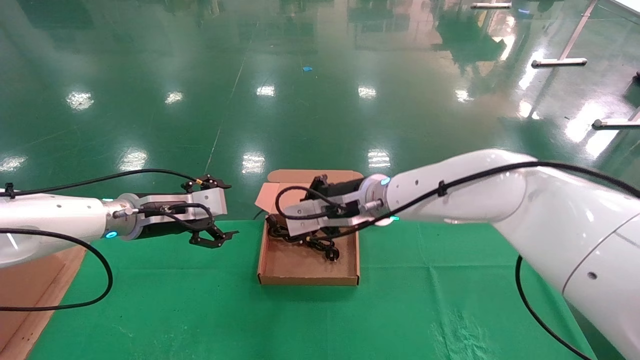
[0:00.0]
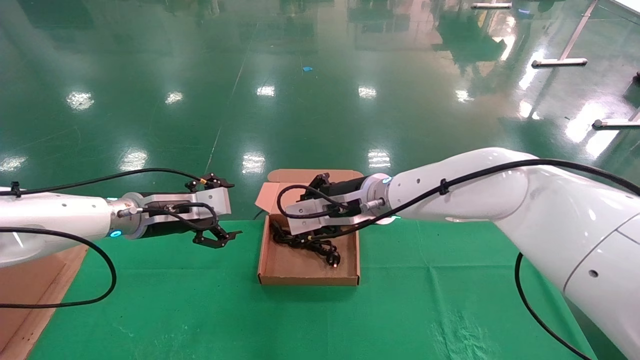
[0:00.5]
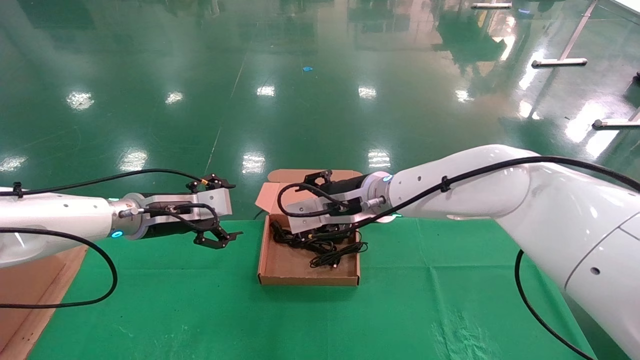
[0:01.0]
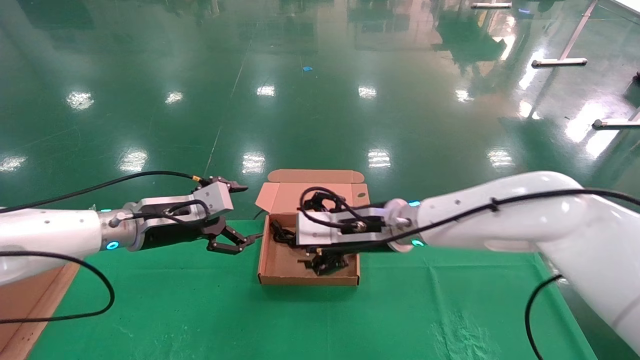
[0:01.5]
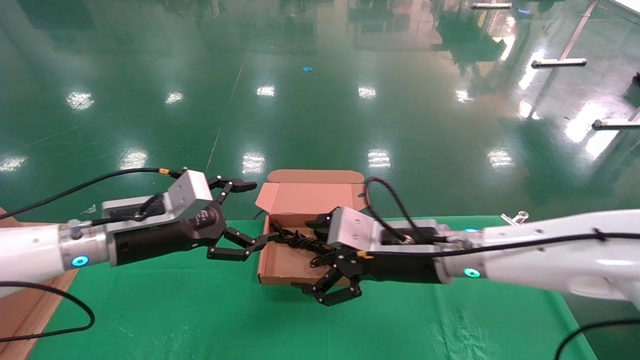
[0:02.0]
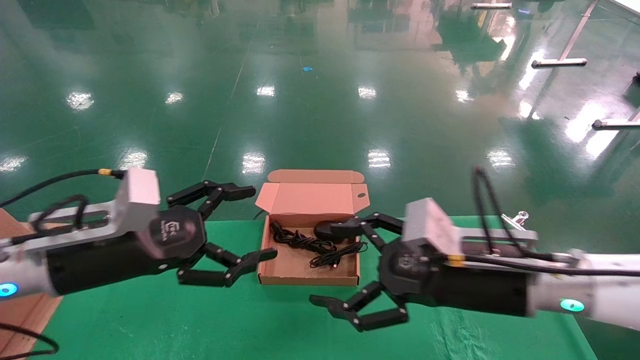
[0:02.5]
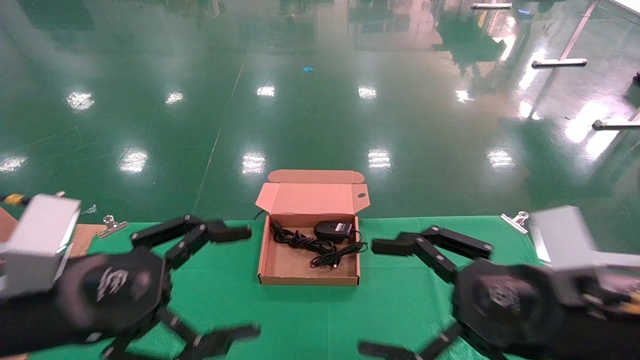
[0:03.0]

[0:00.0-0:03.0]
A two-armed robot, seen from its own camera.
0:00.0 to 0:01.5: The right gripper changes place by about 5 cm, and opens up.
0:01.5 to 0:03.0: The left gripper shifts roughly 20 cm backward. Meanwhile the right gripper goes some 25 cm backward and to the right.

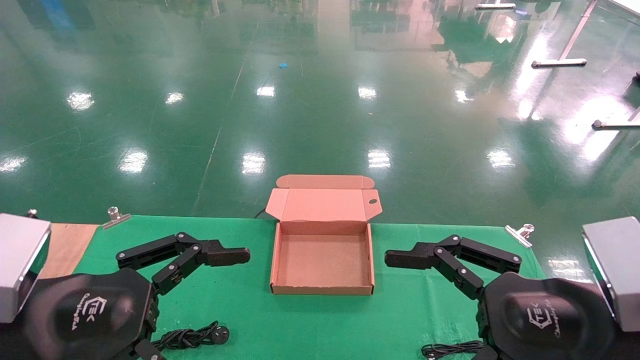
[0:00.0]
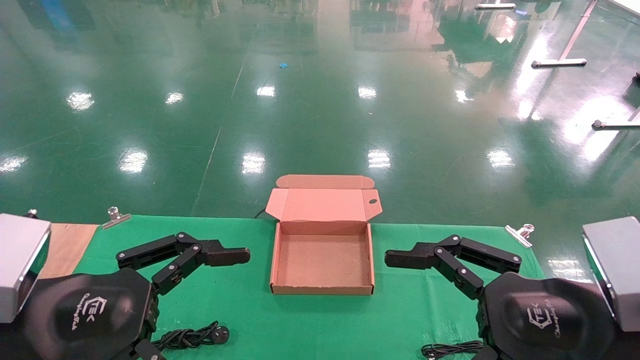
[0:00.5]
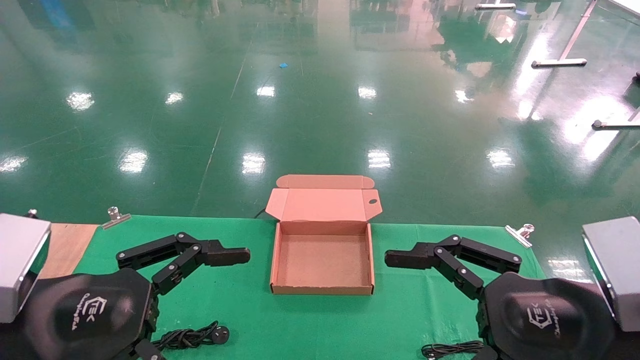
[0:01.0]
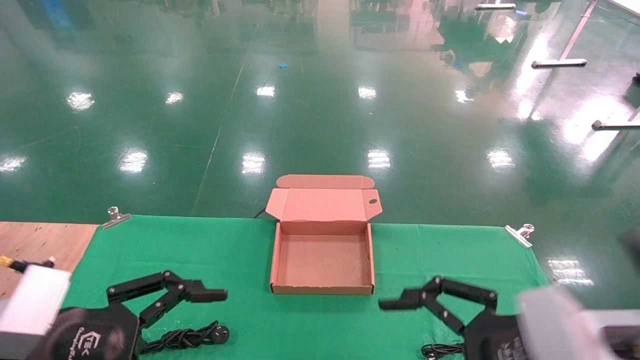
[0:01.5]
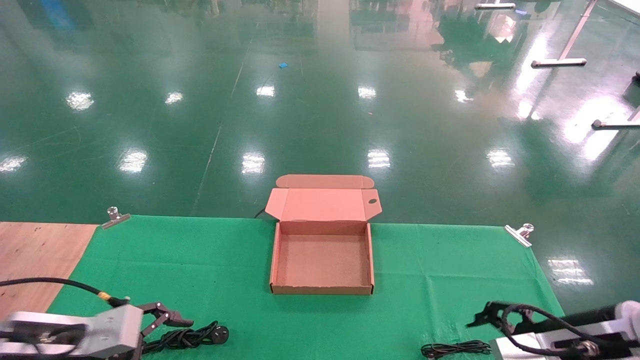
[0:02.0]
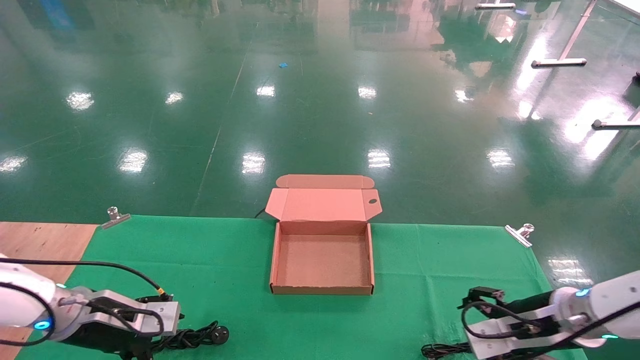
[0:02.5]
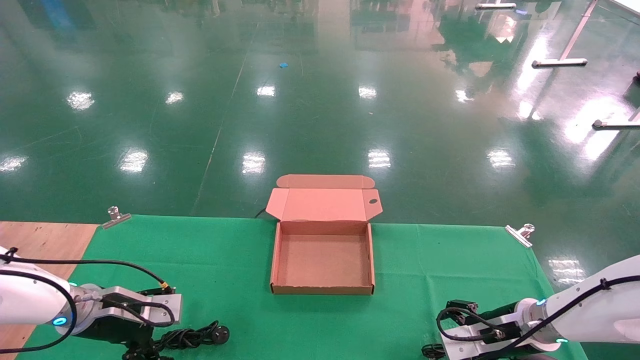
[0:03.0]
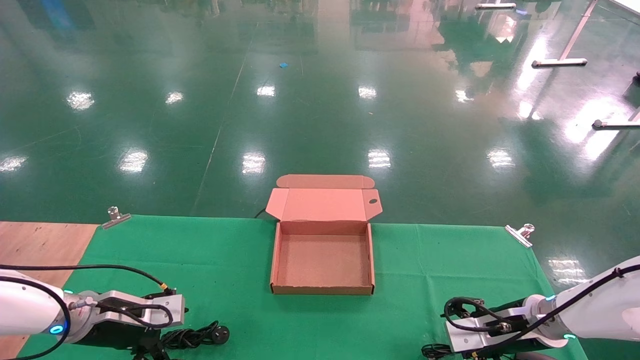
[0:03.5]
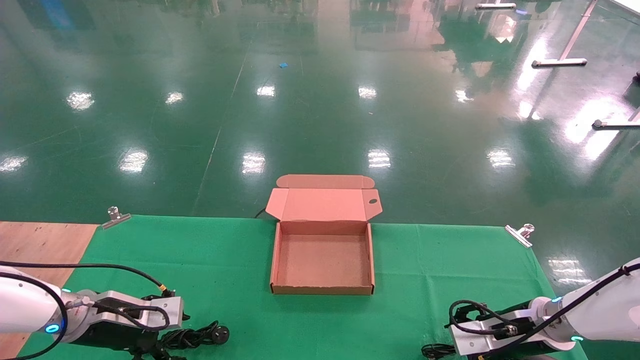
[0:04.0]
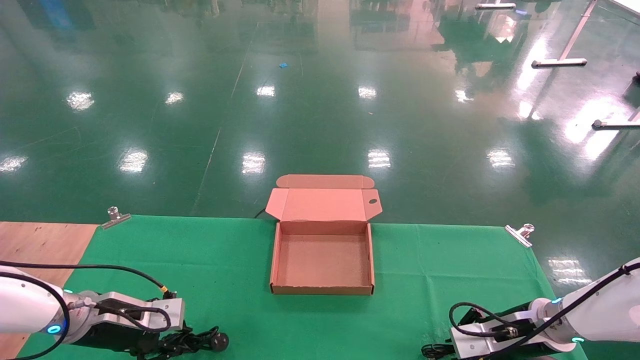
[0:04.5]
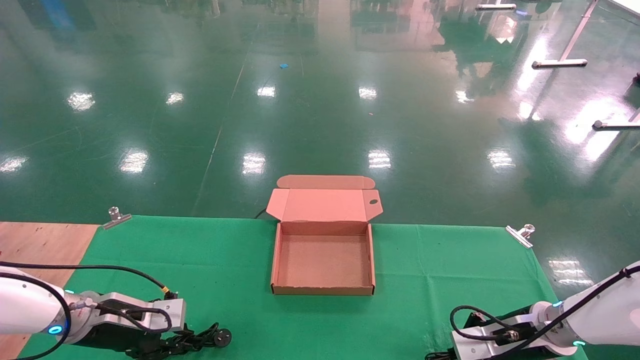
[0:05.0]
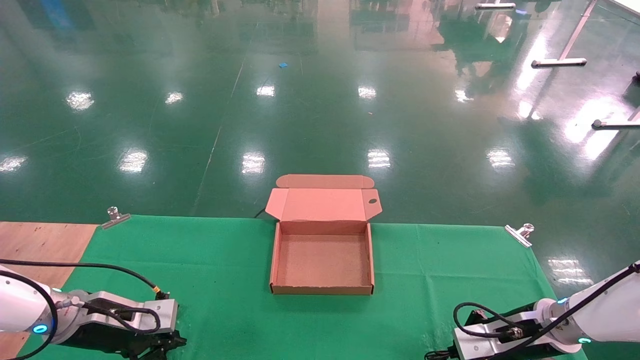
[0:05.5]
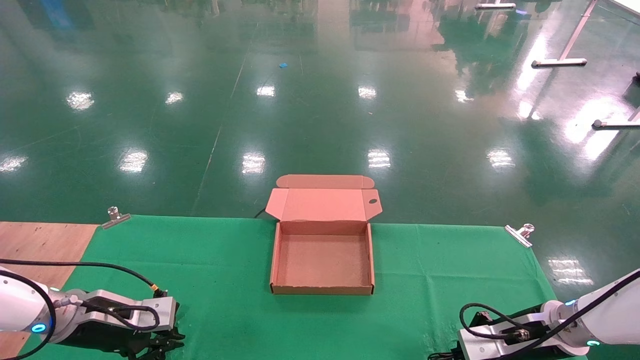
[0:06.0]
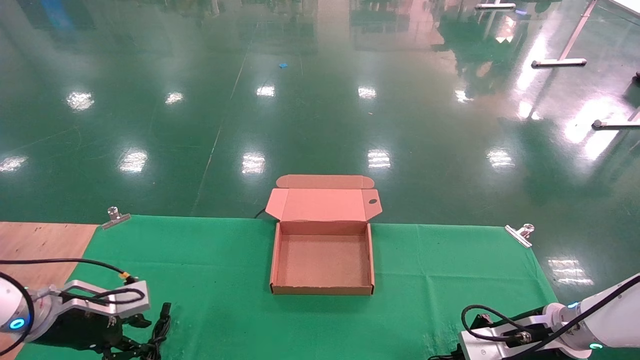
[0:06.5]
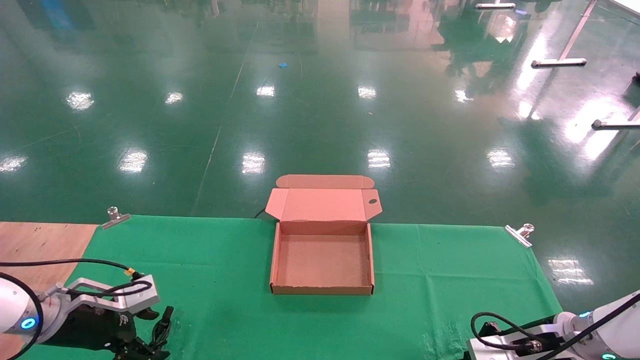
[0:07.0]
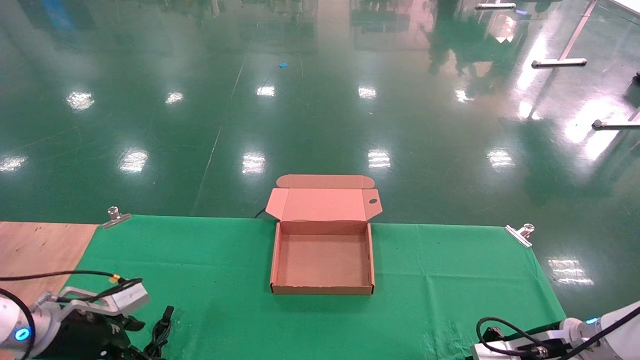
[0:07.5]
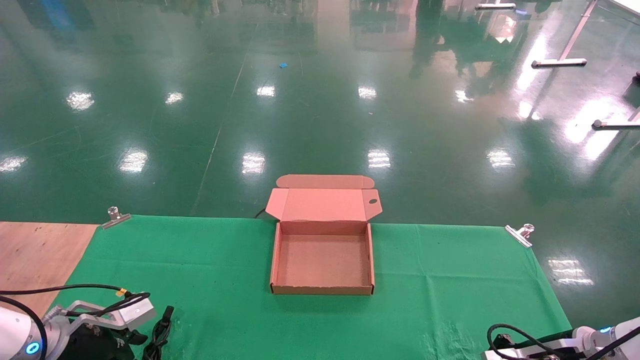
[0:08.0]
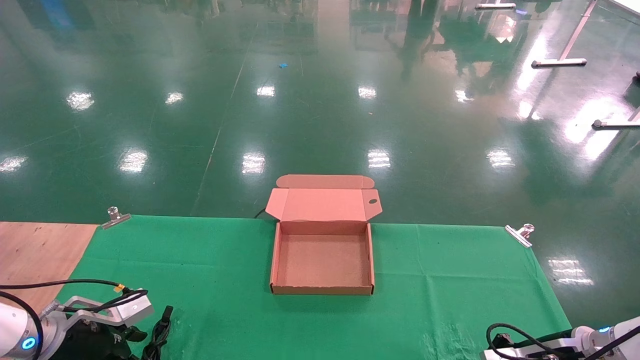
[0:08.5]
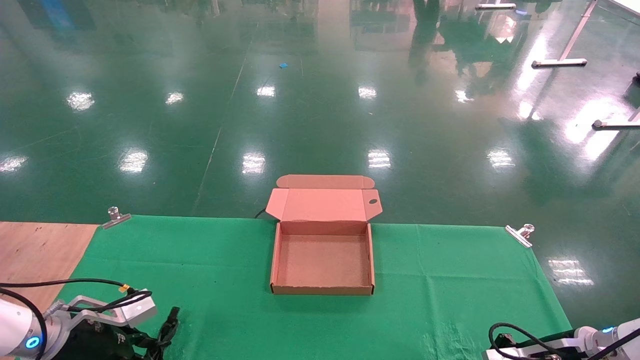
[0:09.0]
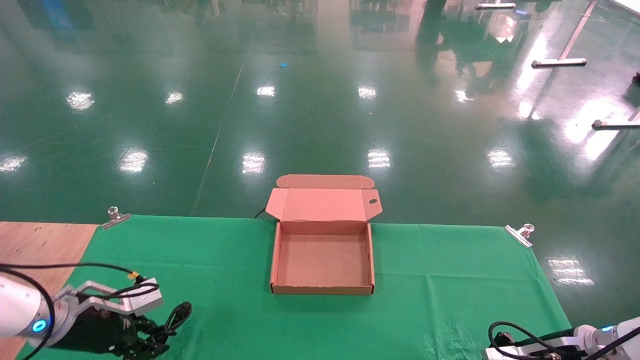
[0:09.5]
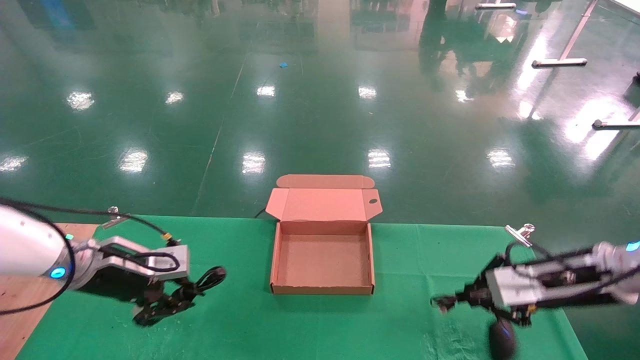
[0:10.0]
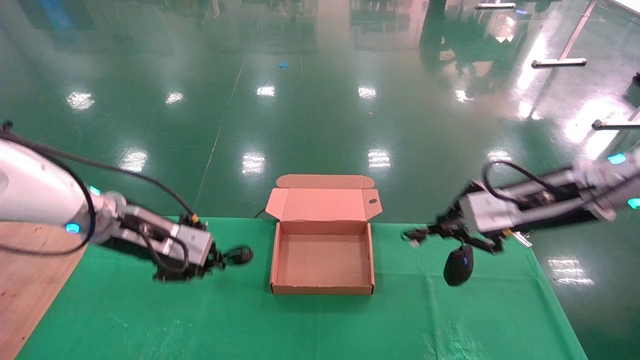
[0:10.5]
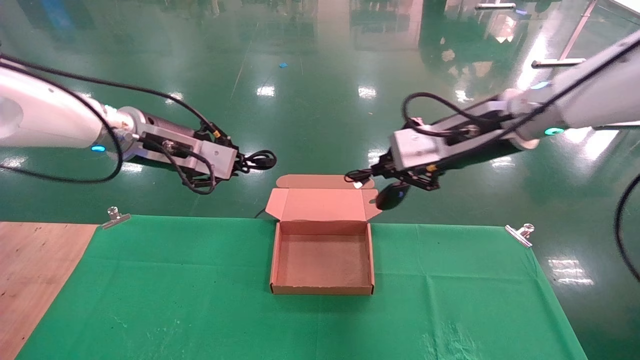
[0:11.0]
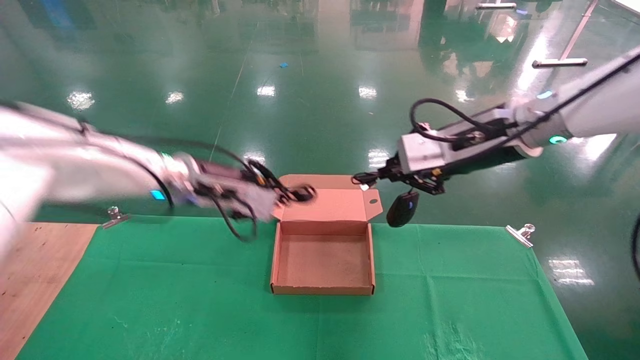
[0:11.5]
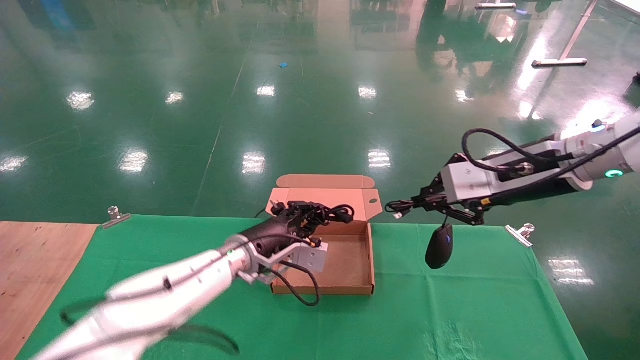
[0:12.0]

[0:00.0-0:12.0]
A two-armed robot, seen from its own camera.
Step, 0:03.0 to 0:07.5: Grab and lift both the mouse and power cord from the accessory packaging area at the same time.
0:00.0 to 0:02.0: The right gripper travels forward and downward by approximately 15 cm; the left gripper travels forward, downward and to the left by approximately 15 cm.
0:02.0 to 0:04.0: The left gripper moves forward, roughly 10 cm; the right gripper shifts approximately 15 cm forward and downward.
0:04.0 to 0:06.0: The left gripper closes. The right gripper closes up.
0:06.0 to 0:08.0: The left gripper moves roughly 5 cm, and opens up.
0:08.0 to 0:10.0: The left gripper shifts about 15 cm upward and to the right, and closes; the right gripper shifts approximately 15 cm upward.
0:10.0 to 0:12.0: The left gripper heads to the right, covering some 20 cm, while the right gripper is displaced upward and to the left by some 15 cm.

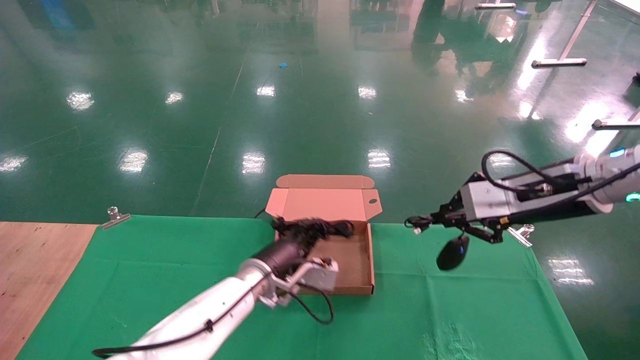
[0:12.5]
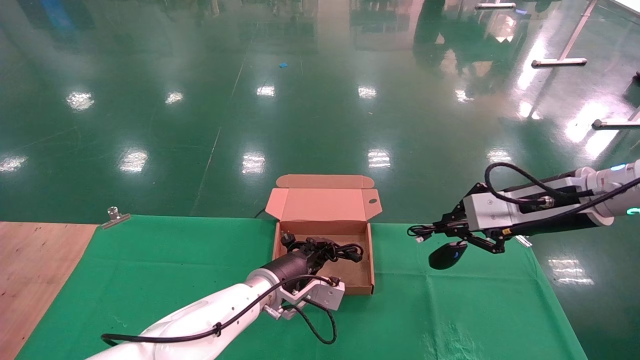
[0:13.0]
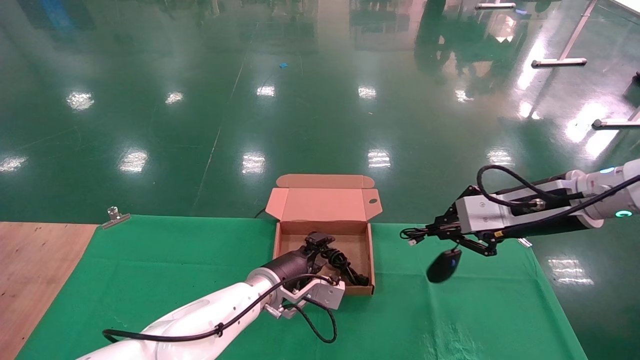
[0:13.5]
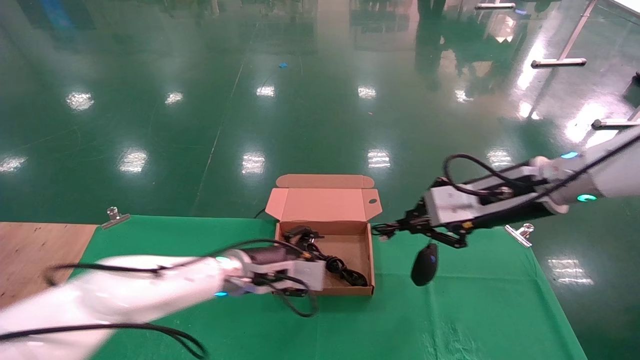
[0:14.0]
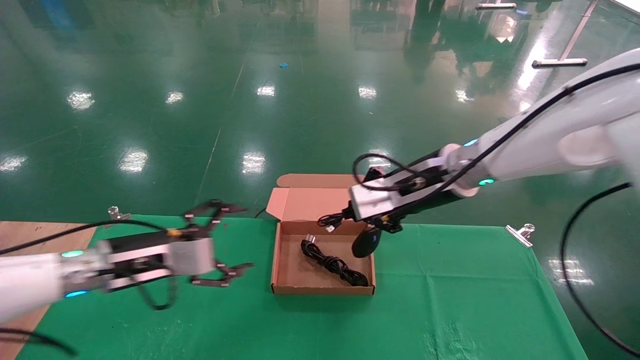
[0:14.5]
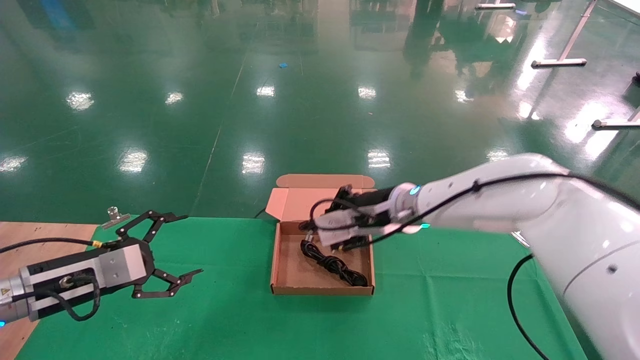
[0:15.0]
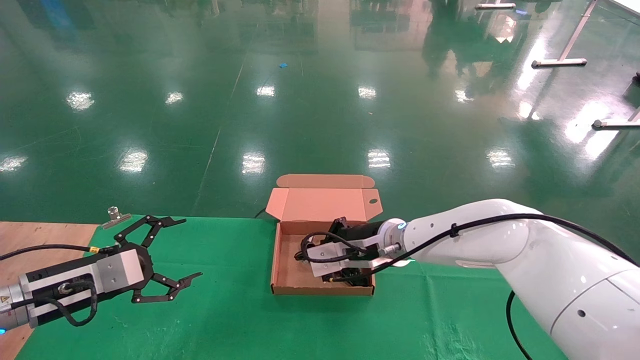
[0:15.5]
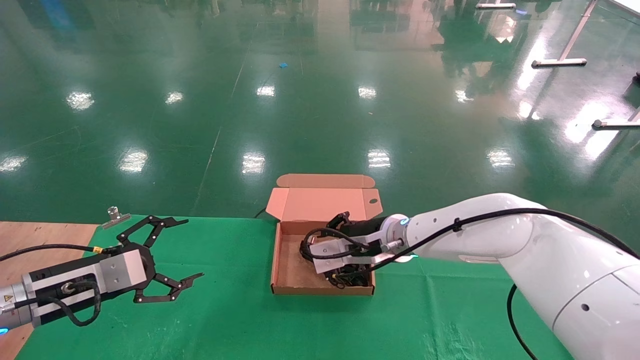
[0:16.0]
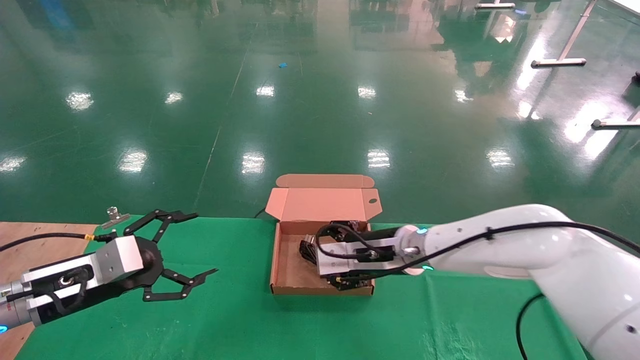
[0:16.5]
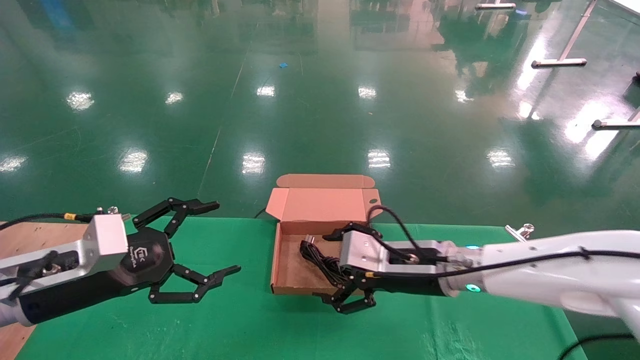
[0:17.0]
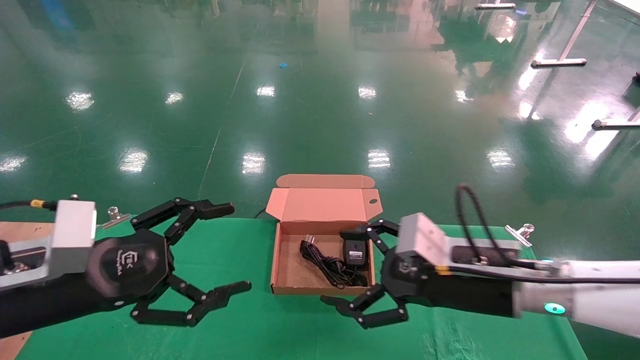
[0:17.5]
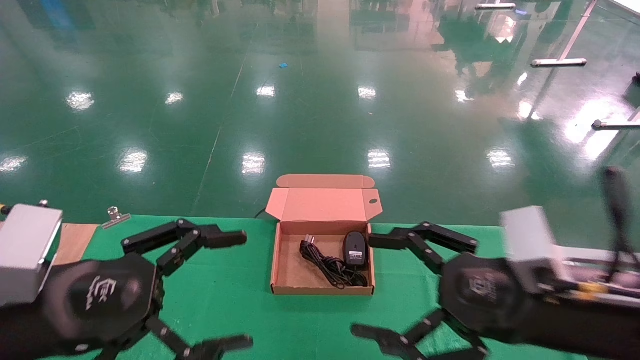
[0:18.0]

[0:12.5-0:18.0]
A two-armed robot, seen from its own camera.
Step, 0:12.5 to 0:16.5: Place the mouse and power cord into the box.
0:12.5 to 0:14.5: The left gripper heads to the left and backward, covering approximately 20 cm, and opens its fingers. Meanwhile the right gripper travels to the left by about 15 cm.
0:14.5 to 0:16.0: The left gripper heads to the left, covering roughly 10 cm. Meanwhile the right gripper heads downward and to the left, covering roughly 15 cm.
0:16.0 to 0:18.0: The left gripper goes approximately 20 cm backward, to the right and upward. The right gripper moves backward and to the right, roughly 25 cm, and opens up.
